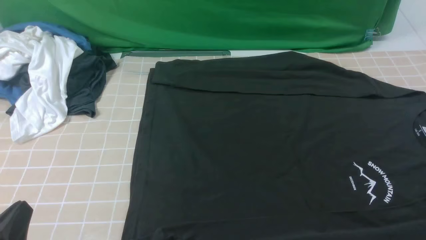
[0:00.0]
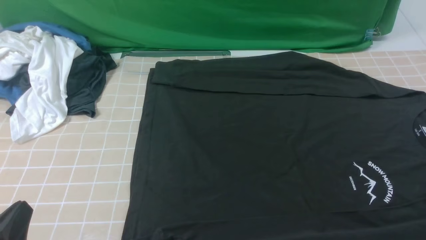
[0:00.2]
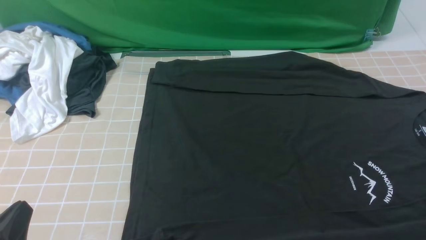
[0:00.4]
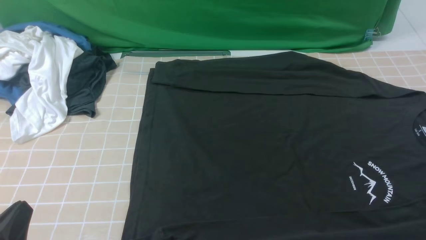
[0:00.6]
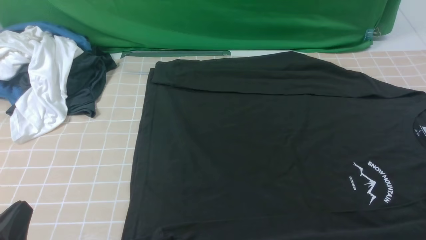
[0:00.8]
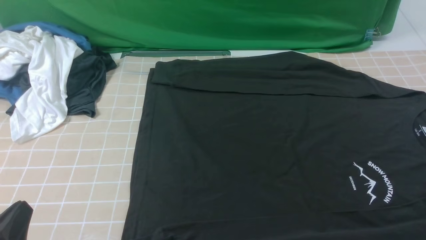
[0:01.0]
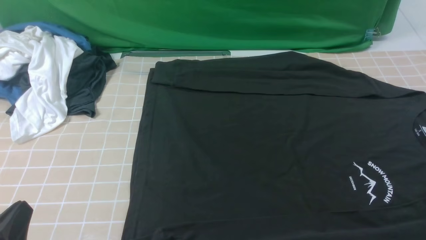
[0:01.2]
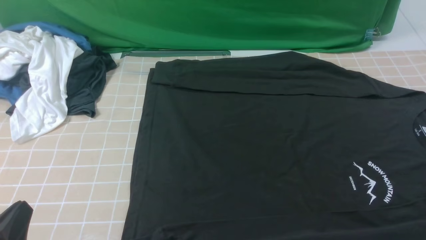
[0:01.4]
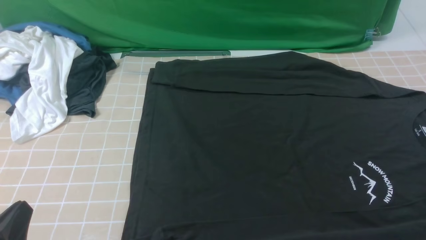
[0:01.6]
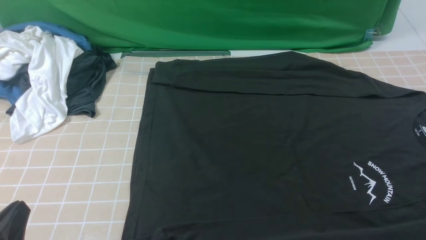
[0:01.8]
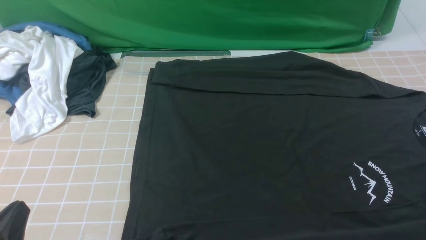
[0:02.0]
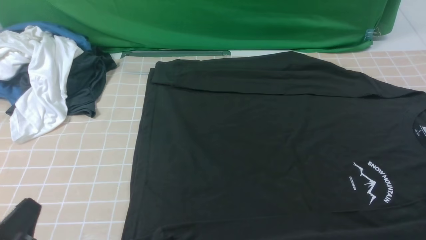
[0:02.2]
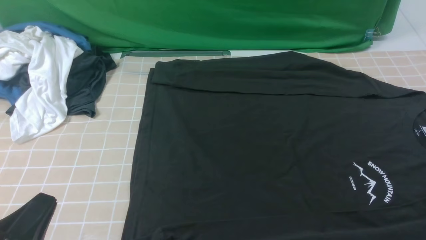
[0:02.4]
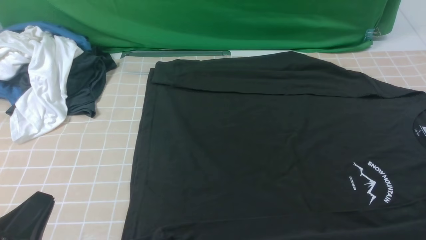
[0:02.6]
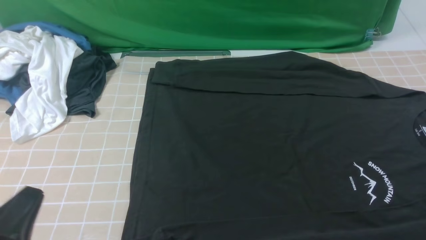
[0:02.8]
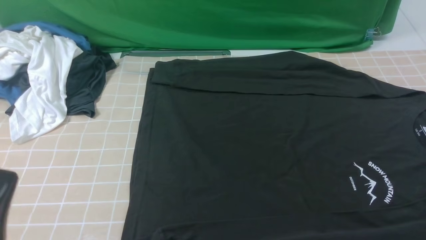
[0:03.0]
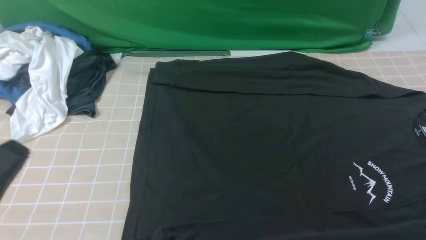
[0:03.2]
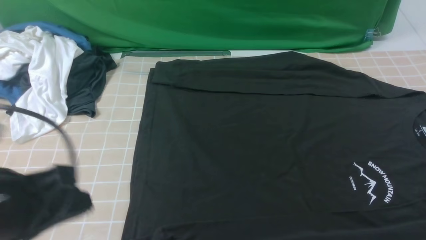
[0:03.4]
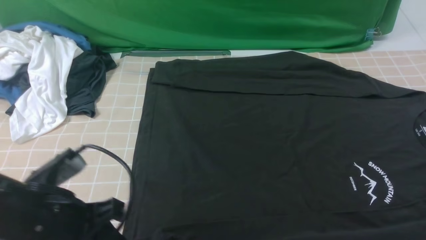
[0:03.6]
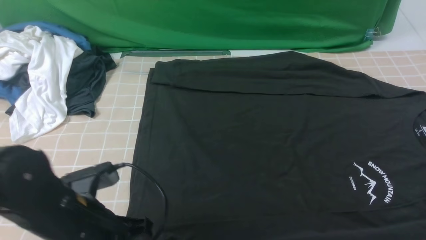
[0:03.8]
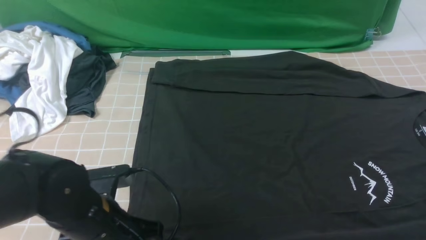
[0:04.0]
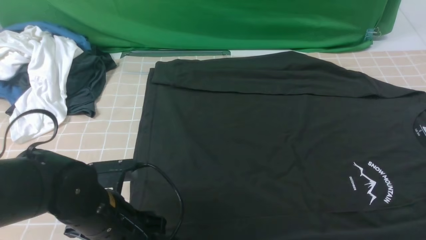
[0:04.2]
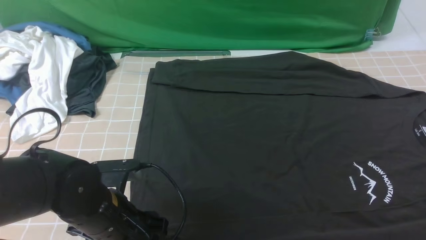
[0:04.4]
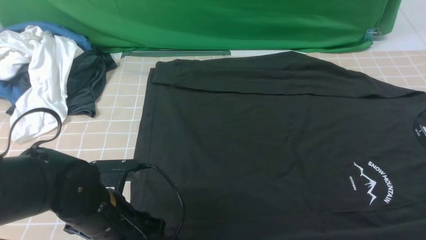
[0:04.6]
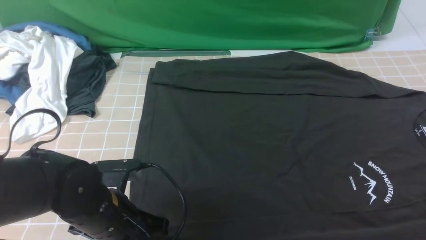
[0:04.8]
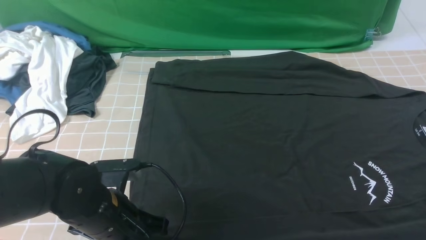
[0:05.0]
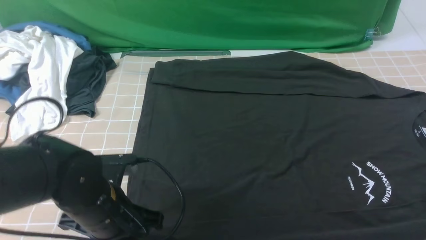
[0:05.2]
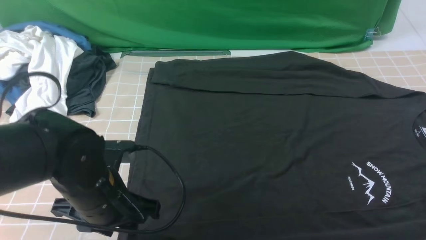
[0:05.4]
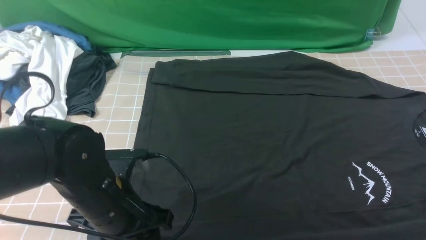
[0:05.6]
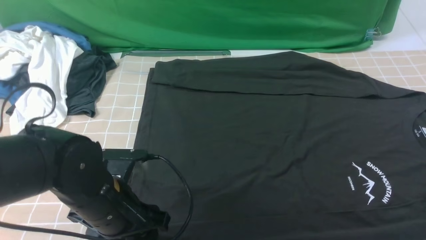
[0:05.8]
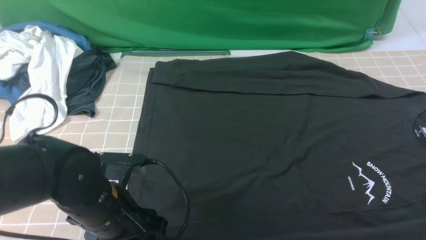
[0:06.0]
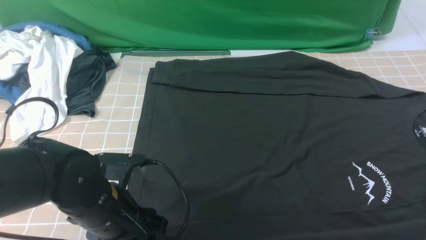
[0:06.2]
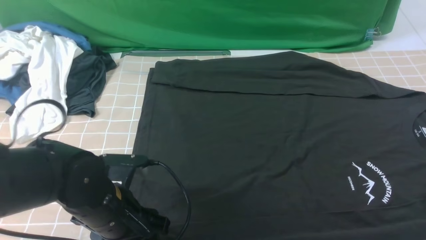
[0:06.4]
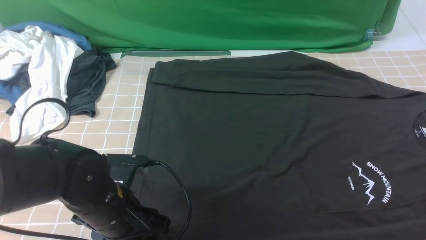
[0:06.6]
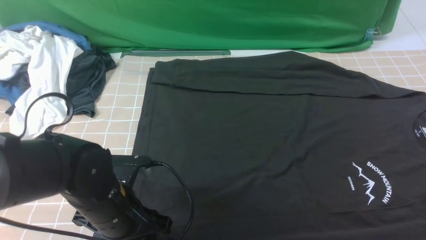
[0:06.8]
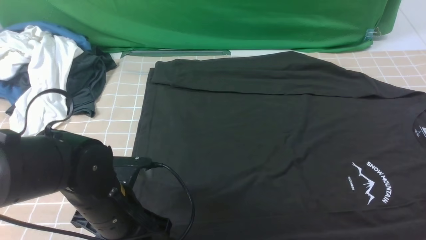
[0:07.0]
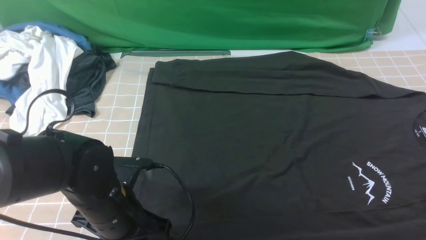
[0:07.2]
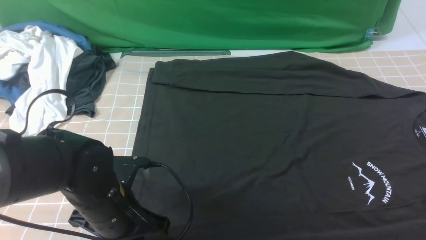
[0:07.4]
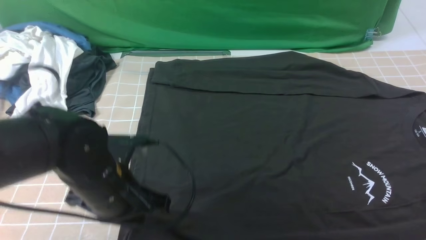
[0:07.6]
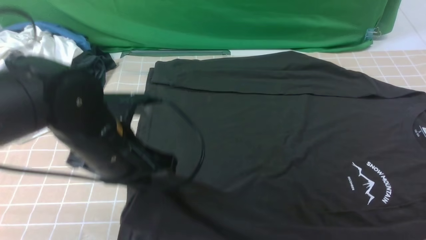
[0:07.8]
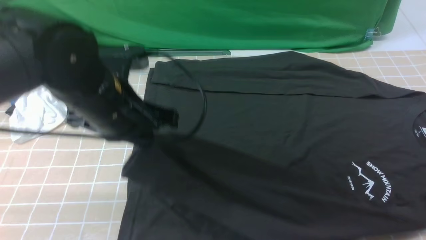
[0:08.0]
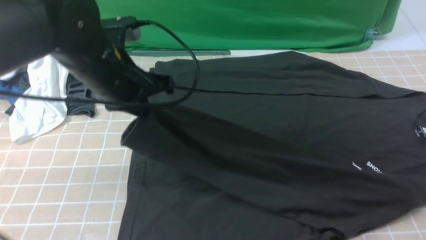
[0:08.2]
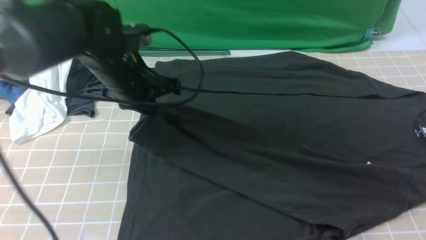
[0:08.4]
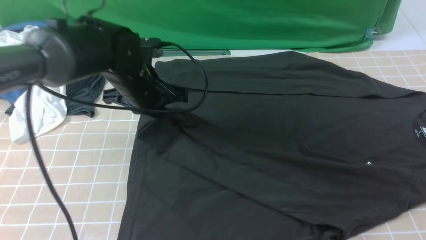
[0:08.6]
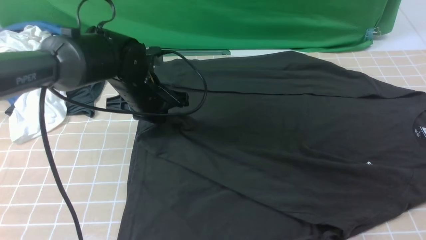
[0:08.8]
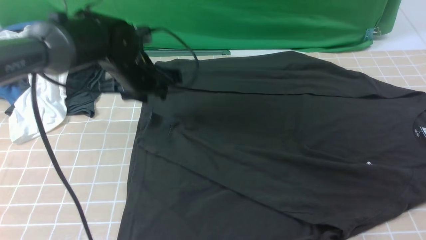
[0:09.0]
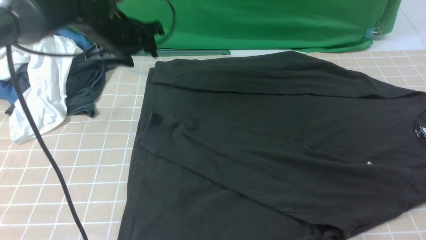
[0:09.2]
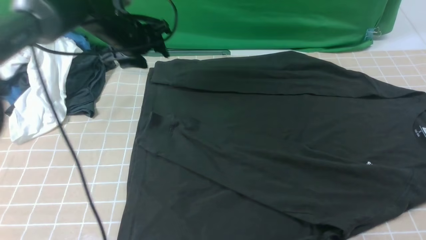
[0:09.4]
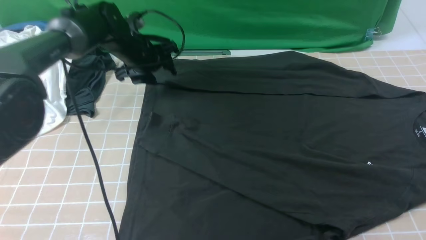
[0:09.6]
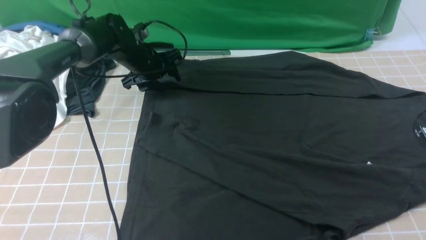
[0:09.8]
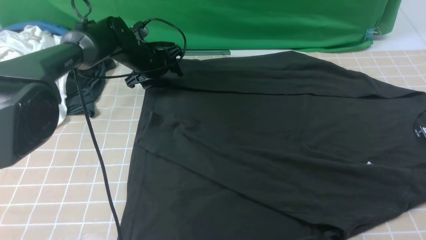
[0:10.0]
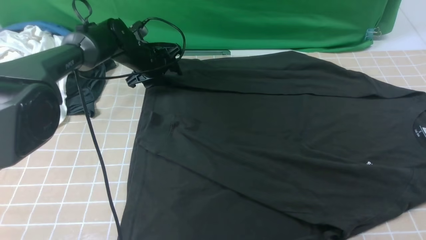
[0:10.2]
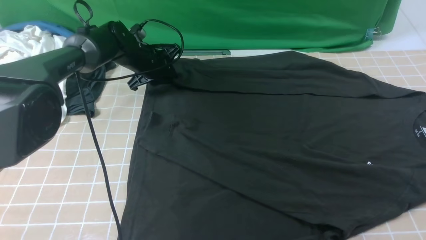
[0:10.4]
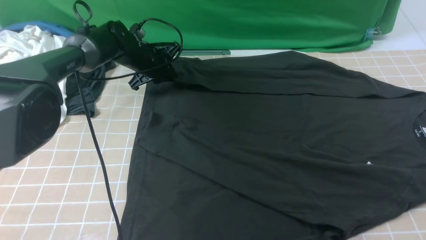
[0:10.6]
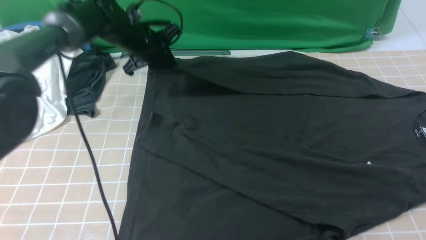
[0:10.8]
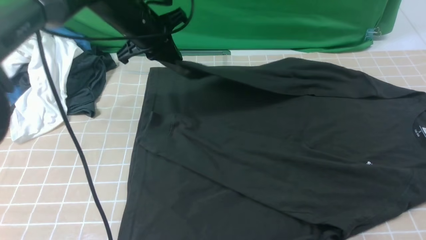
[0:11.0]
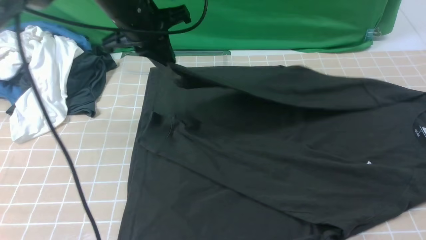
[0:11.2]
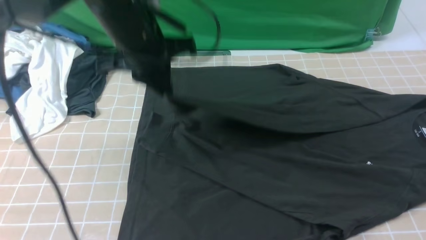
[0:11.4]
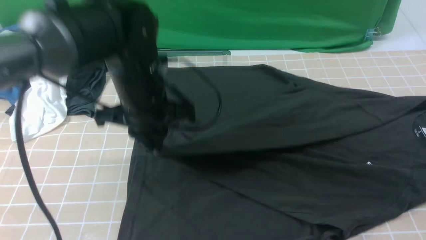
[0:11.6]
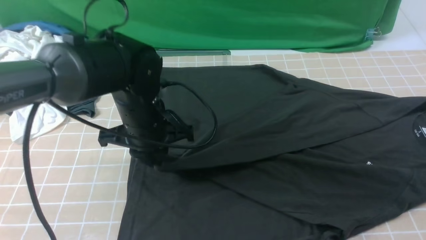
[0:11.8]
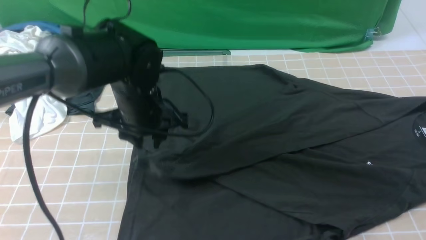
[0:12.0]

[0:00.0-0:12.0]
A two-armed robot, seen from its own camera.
Step, 0:00.0 to 0:07.2: use the left arm to clamp the cuff closest to it.
Step, 0:07.4 to 0:08.8: use the left arm to drag and place the cuff at the centered position on the left edge of the fabric.
Step, 0:09.2 to 0:10.6: use the left arm to clamp the cuff farthest from it.
0:00.0 to 0:01.6: Neither gripper changes place.
0:01.6 to 0:03.0: The left gripper goes some 5 cm upward.
0:03.0 to 0:04.4: The right gripper shifts about 10 cm forward and upward. The left gripper travels forward, to the right and downward by about 20 cm, and opens.
0:04.4 to 0:06.0: The left gripper closes, then opens again.
0:06.0 to 0:07.6: The left gripper closes its fingers.
0:07.6 to 0:09.0: The left gripper travels forward by about 20 cm, and opens its fingers.
0:09.0 to 0:10.4: The left gripper heads forward and downward, covering about 15 cm.
0:10.4 to 0:12.0: The right gripper closes up, while the left gripper goes some 20 cm backward and upward.

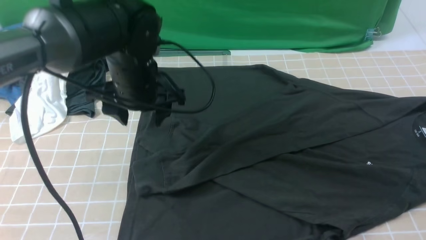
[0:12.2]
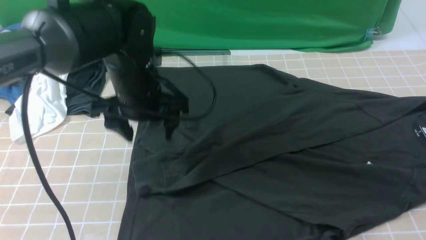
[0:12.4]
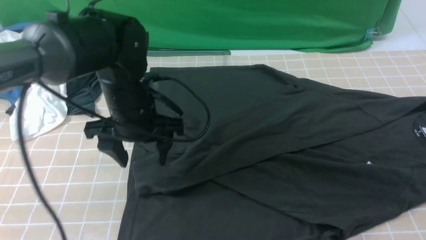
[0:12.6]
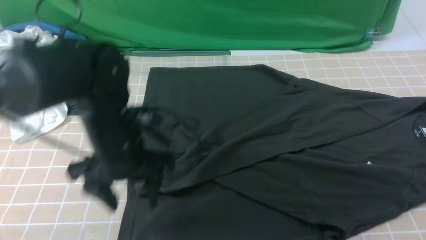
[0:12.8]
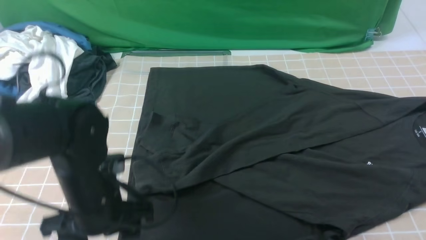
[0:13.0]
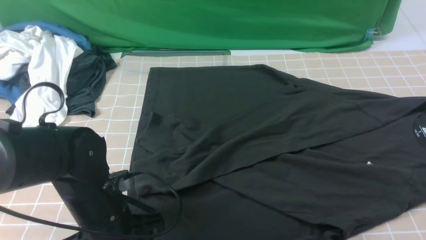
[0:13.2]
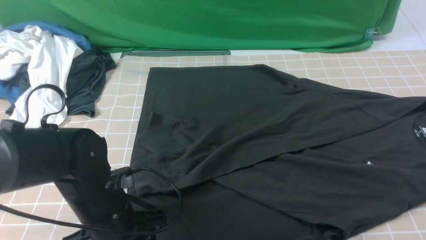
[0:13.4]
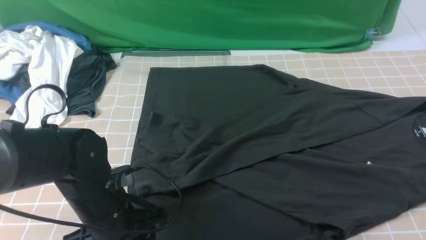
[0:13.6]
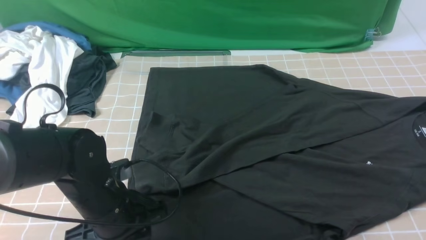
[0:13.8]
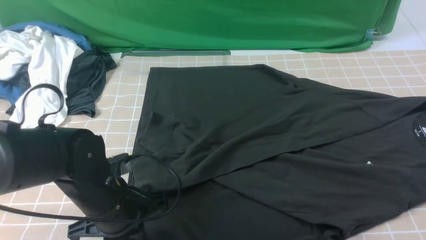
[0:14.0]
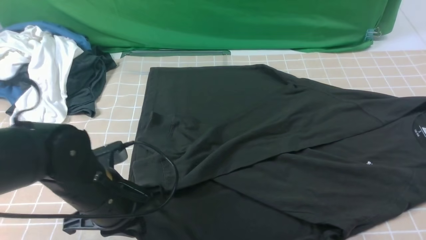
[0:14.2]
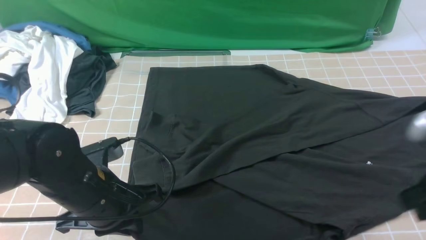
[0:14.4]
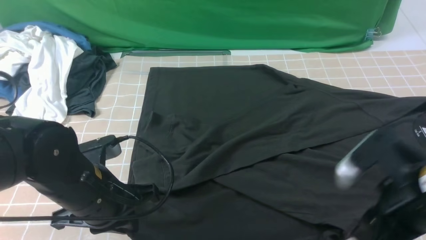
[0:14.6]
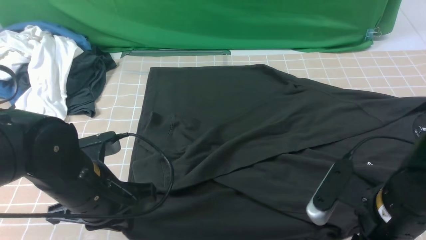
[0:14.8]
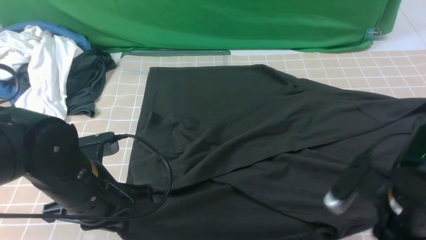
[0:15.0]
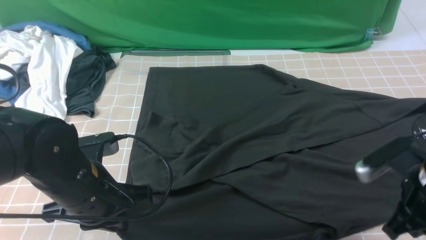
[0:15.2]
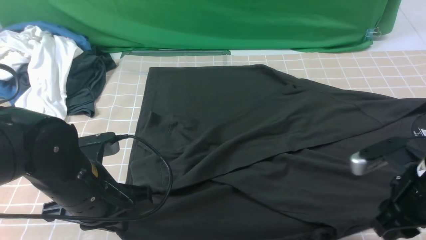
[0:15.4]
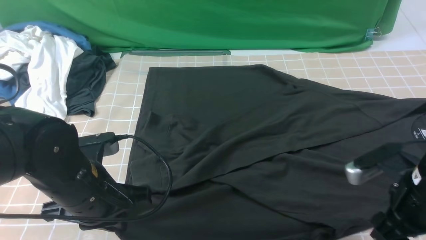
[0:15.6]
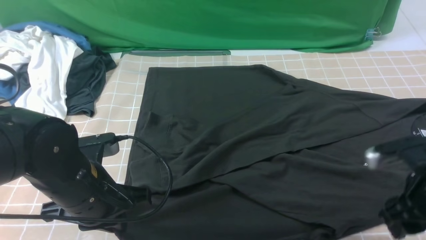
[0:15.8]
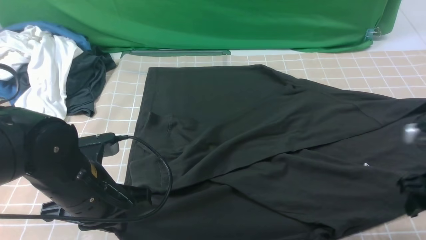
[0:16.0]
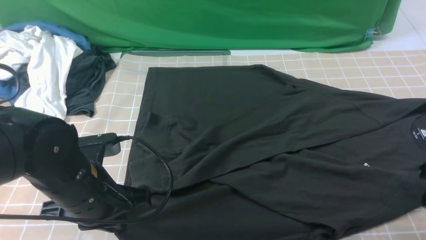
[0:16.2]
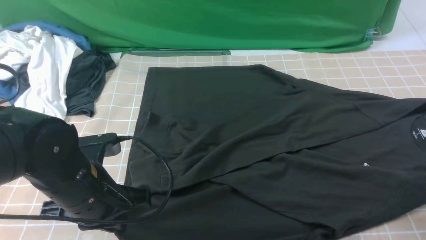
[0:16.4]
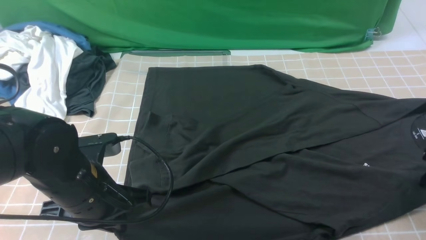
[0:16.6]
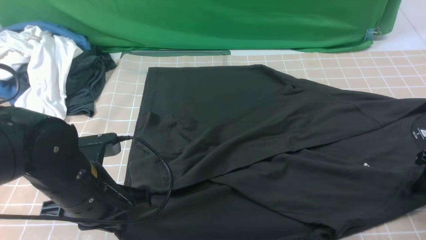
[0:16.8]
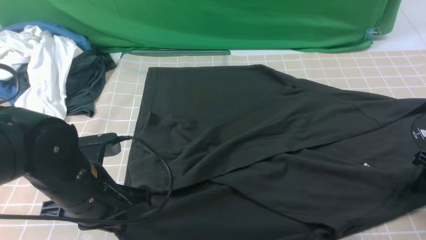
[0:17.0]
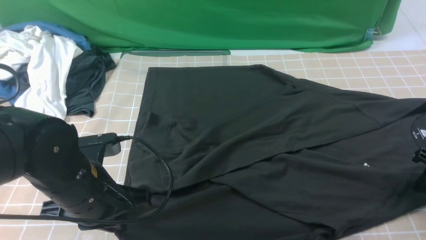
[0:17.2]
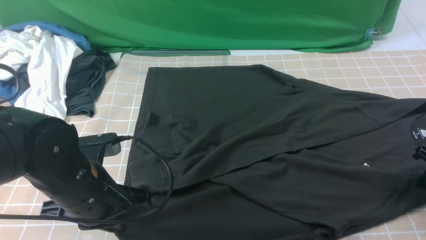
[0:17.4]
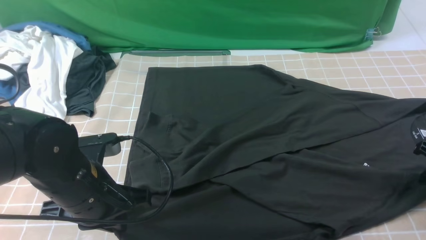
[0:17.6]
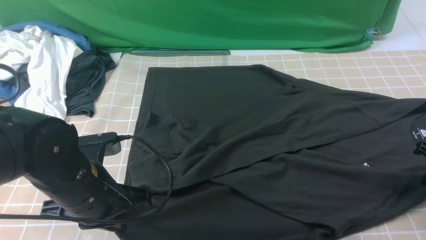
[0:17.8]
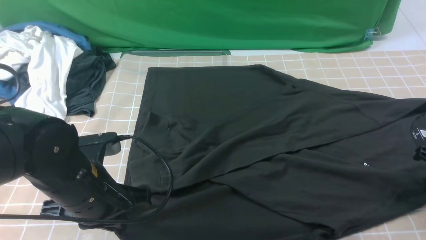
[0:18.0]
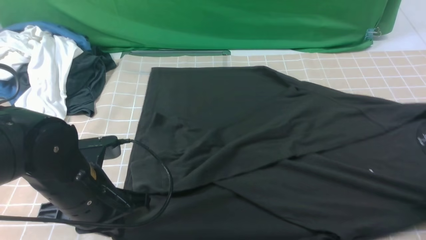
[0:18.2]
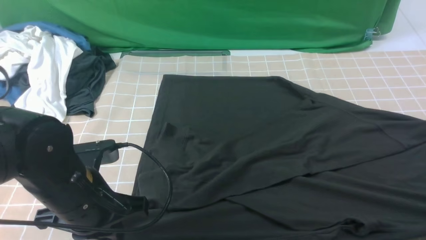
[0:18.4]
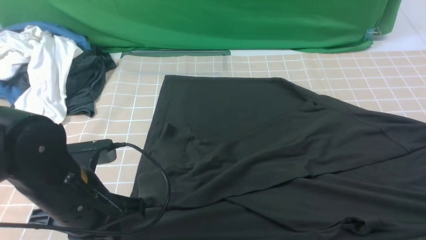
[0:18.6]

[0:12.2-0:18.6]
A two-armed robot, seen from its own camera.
Step, 0:12.2 to 0:18.4: use both arms simultaneously to clamp the lower edge of the clothing fabric.
0:12.2 to 0:13.8: The left gripper is displaced backward and downward by roughly 15 cm, and closes its fingers.
0:13.8 to 0:15.4: The left gripper shifts approximately 5 cm upward, and closes up. The right gripper travels downward by roughly 10 cm, and opens up.
0:15.4 to 0:17.0: The right gripper travels to the right by approximately 10 cm, and opens its fingers.
0:17.0 to 0:18.6: The right gripper moves about 10 cm, and closes its fingers.
